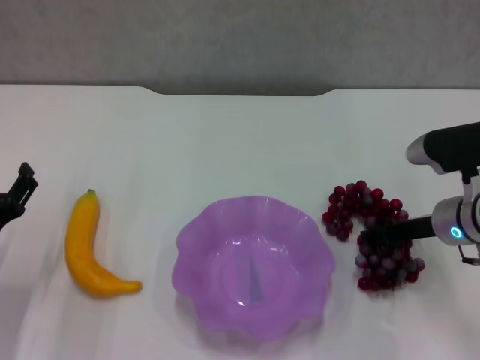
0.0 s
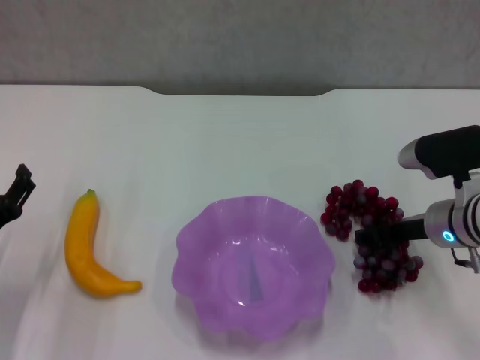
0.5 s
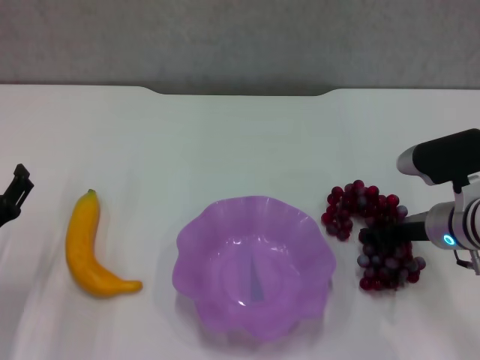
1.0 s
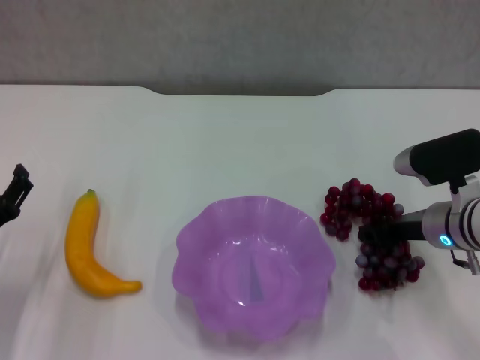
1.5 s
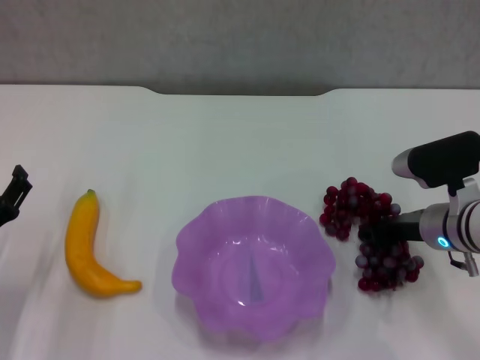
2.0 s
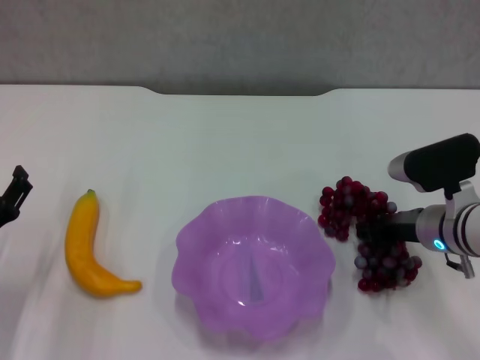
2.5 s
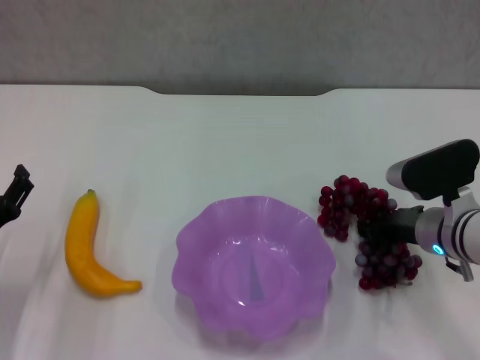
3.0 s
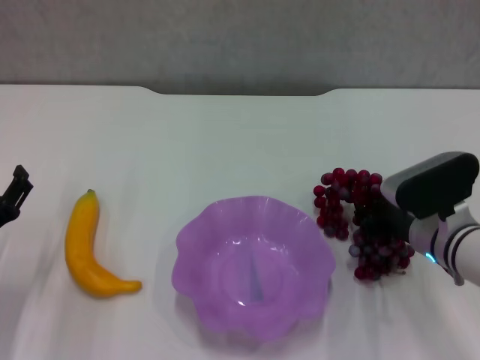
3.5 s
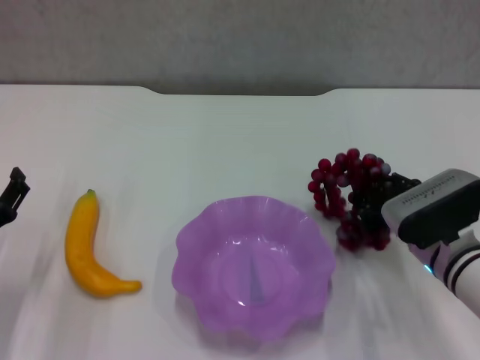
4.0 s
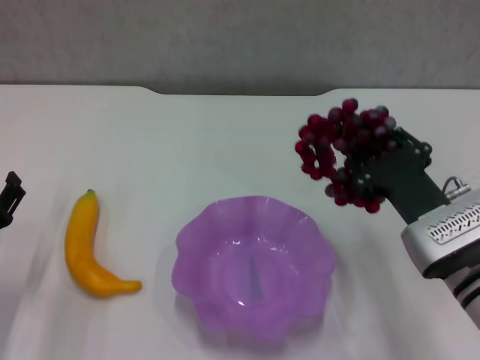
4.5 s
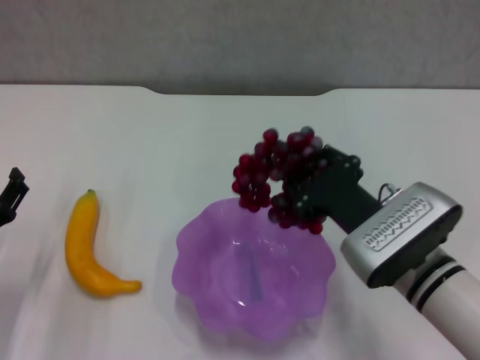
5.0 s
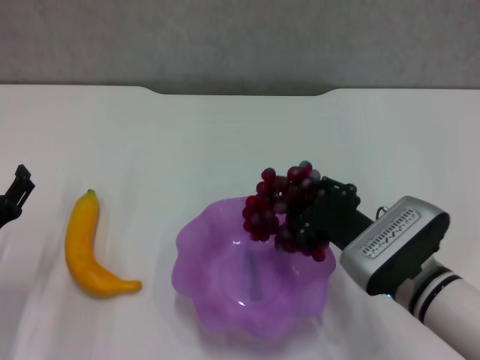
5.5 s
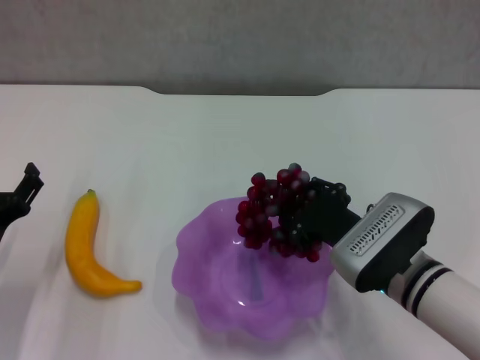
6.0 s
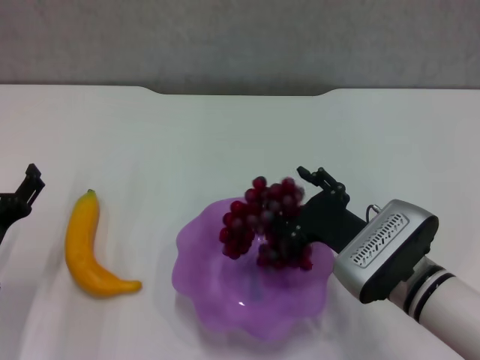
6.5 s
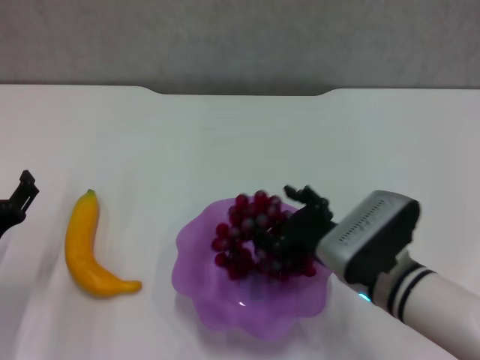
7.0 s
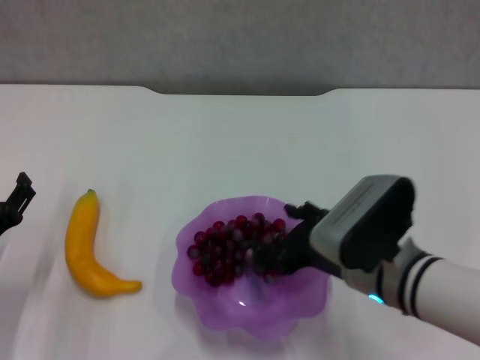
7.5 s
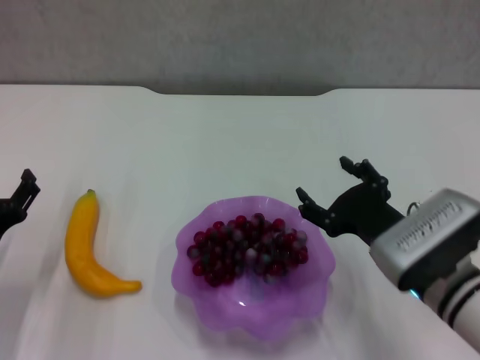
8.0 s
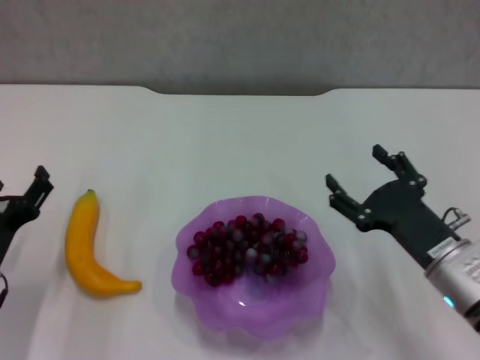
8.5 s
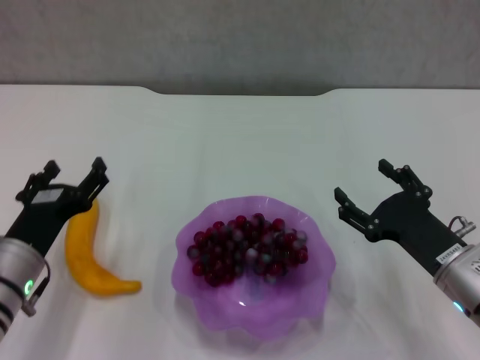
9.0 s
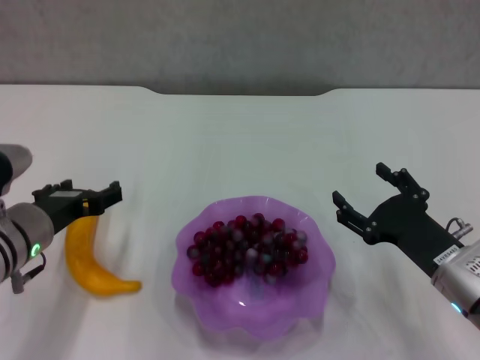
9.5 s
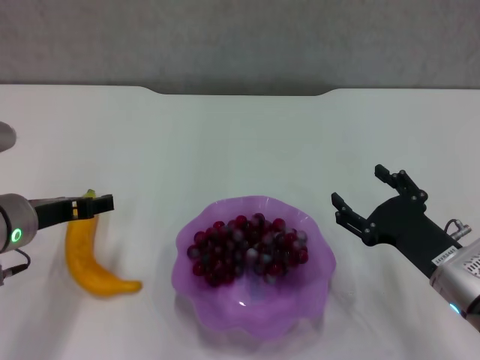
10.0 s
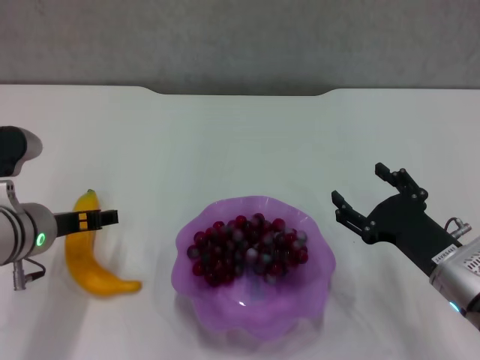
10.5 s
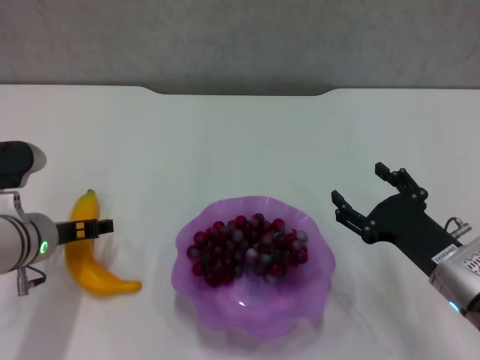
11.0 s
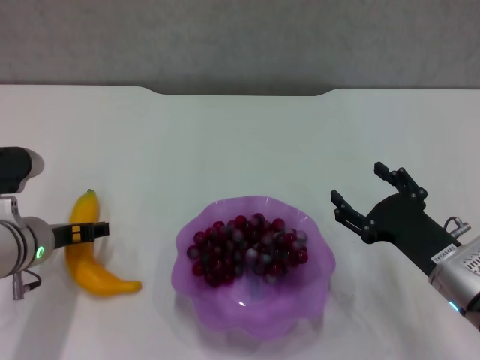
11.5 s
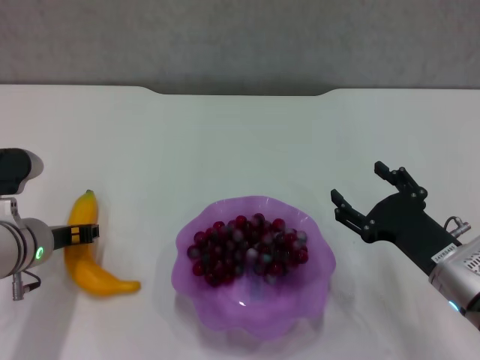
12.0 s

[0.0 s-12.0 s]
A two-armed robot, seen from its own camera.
Step, 1.0 to 7.5 s: Place the grape in the purple plate with right gripper.
0.0 to 2.0 s: The right gripper closes.
2.0 to 4.0 s: The right gripper changes place by approximately 5 cm.
4.0 to 6.0 s: The right gripper is displaced to the left by approximately 5 cm.
6.0 to 8.0 s: The right gripper opens its fingers.
8.0 to 10.0 s: The left gripper travels upward and forward by roughly 10 cm. The right gripper heads to the right, covering roughly 5 cm.
10.0 to 12.0 s: The left gripper is displaced downward by roughly 5 cm, and closes.

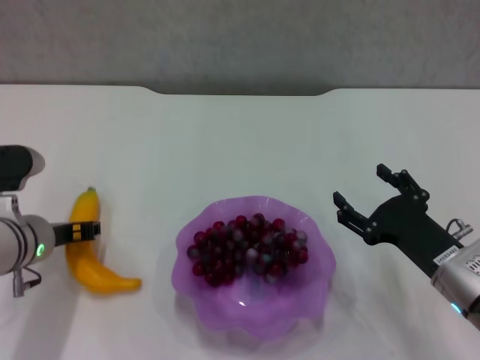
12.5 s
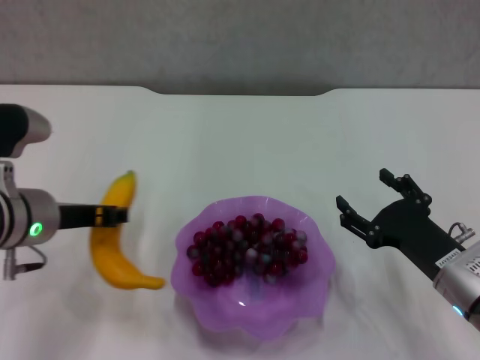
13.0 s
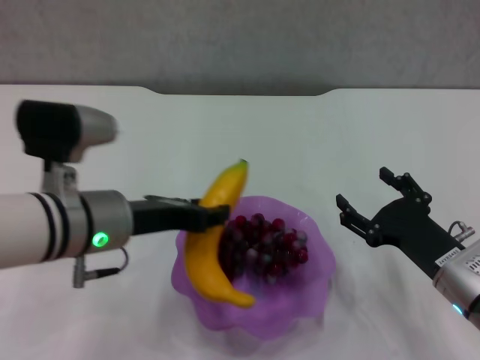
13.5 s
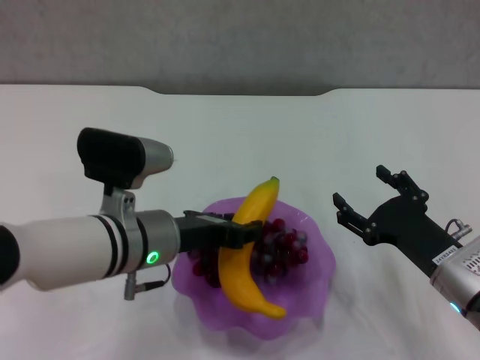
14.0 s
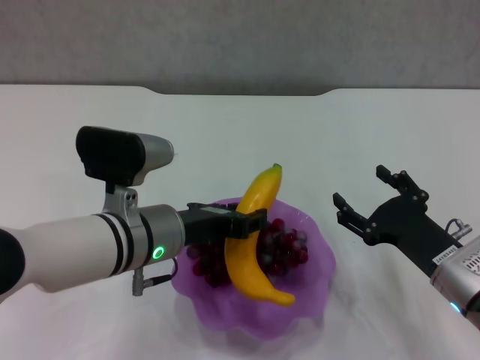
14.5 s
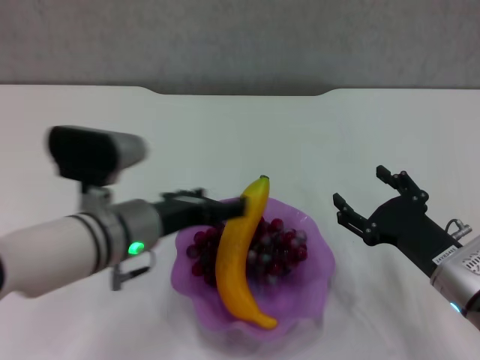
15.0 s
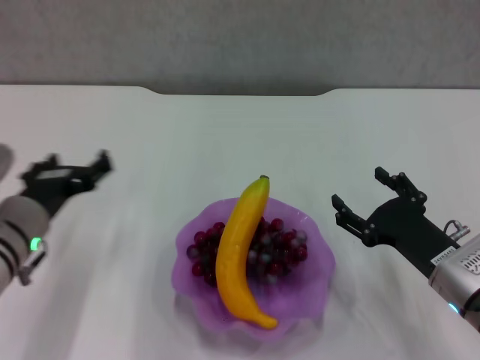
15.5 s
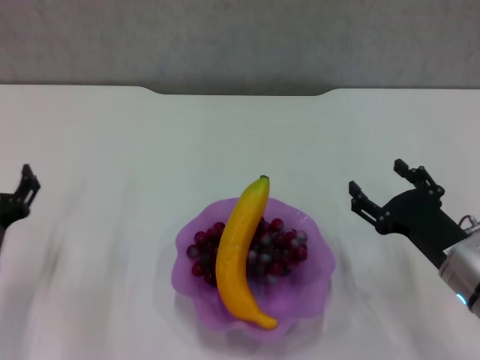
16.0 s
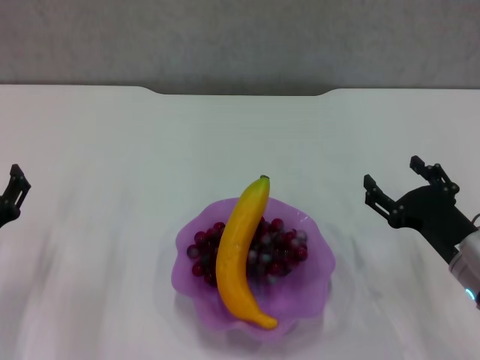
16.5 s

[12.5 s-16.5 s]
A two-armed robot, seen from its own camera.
Step, 12.5 to 15.0 s: Place the banana in the purple plate with left gripper.
12.5 to 14.5 s: The left gripper shifts roughly 10 cm to the right.
14.5 to 16.5 s: The left gripper shifts about 20 cm to the left and downward, and opens its fingers.

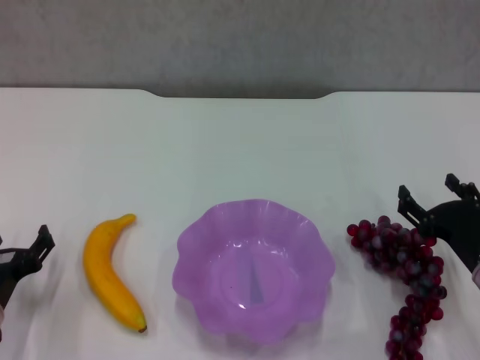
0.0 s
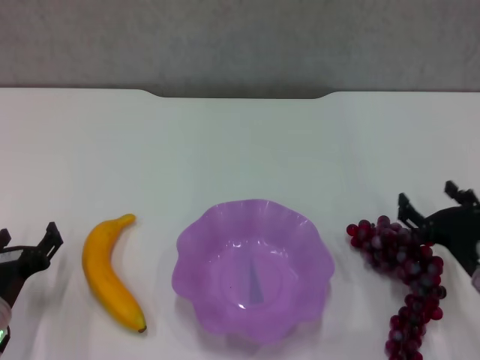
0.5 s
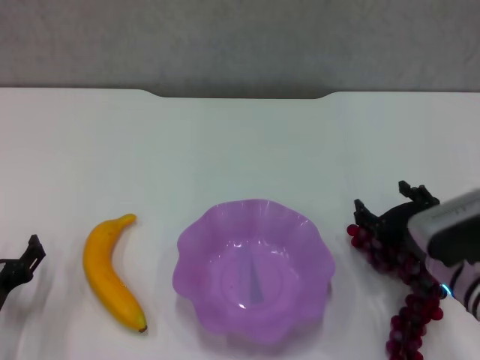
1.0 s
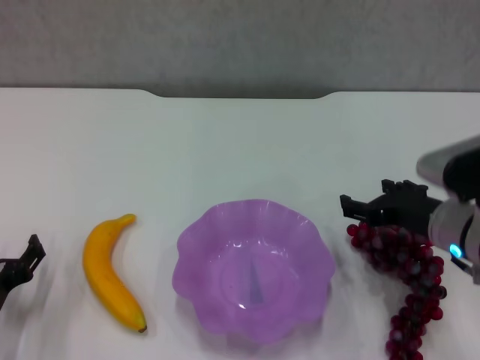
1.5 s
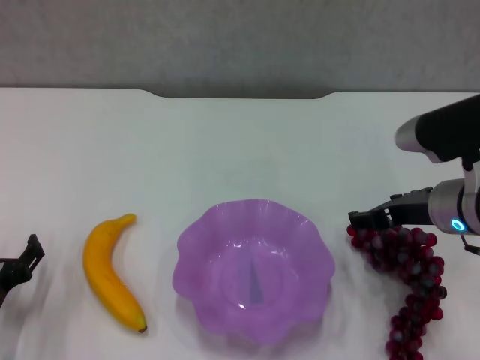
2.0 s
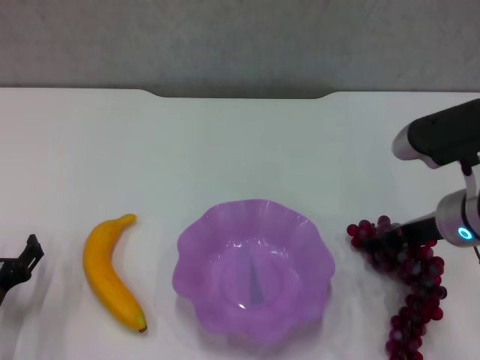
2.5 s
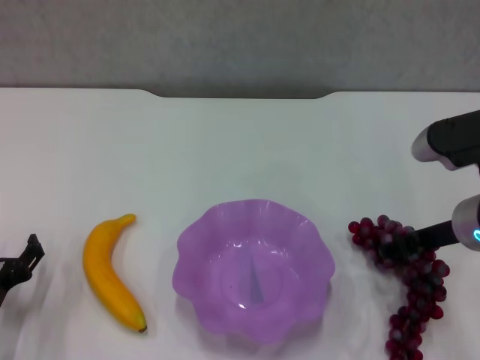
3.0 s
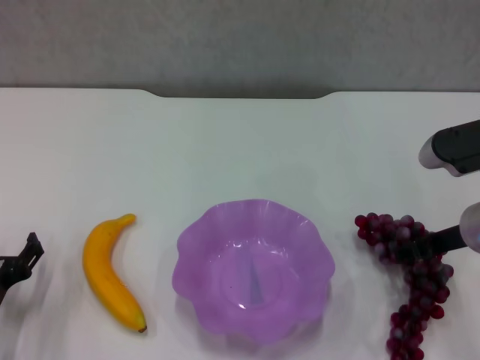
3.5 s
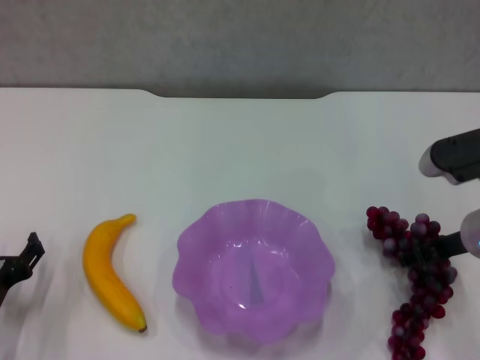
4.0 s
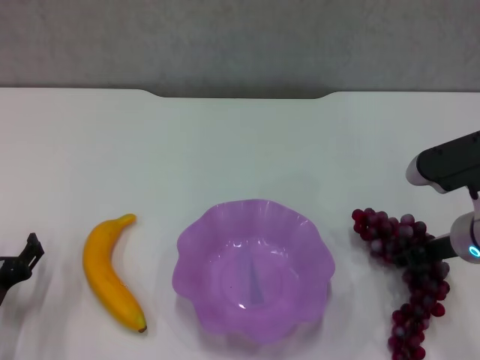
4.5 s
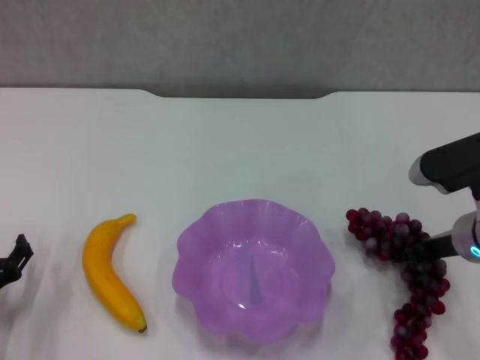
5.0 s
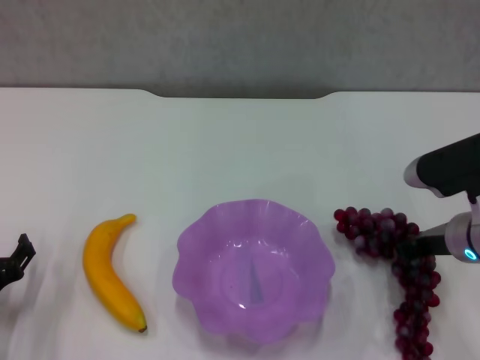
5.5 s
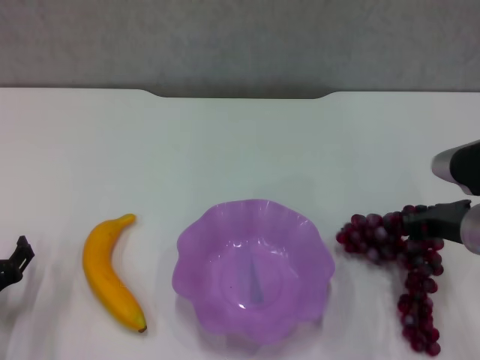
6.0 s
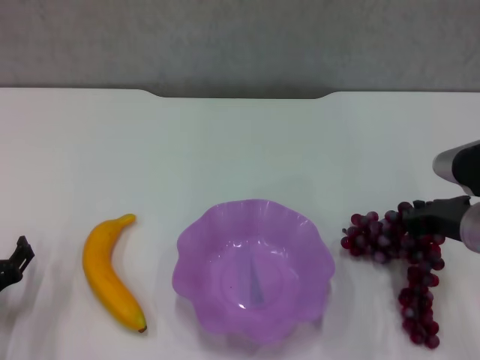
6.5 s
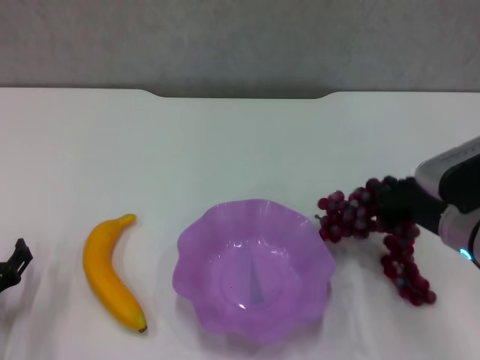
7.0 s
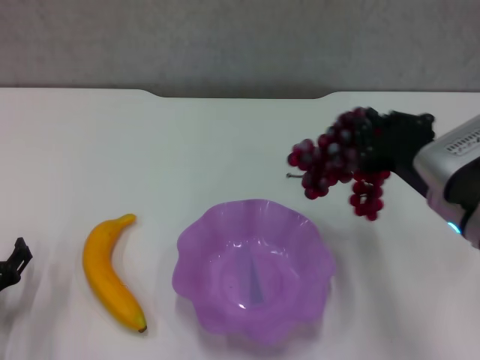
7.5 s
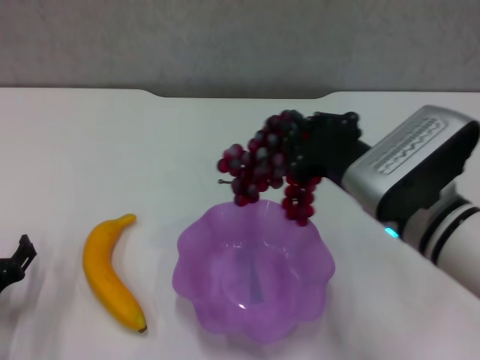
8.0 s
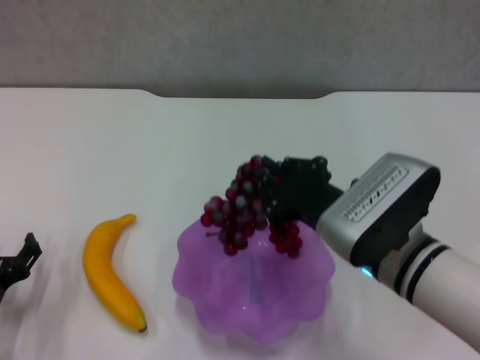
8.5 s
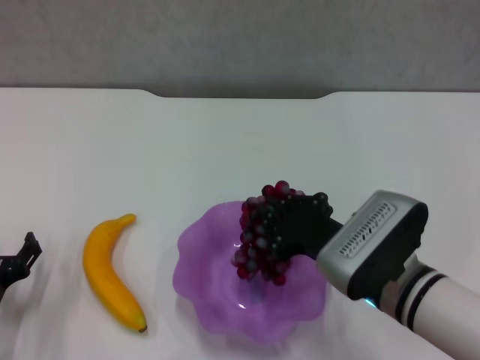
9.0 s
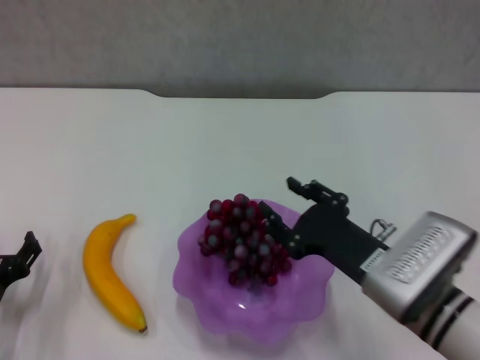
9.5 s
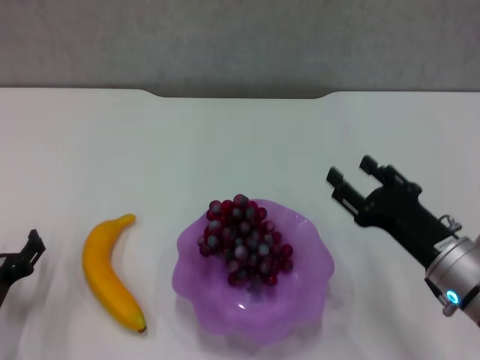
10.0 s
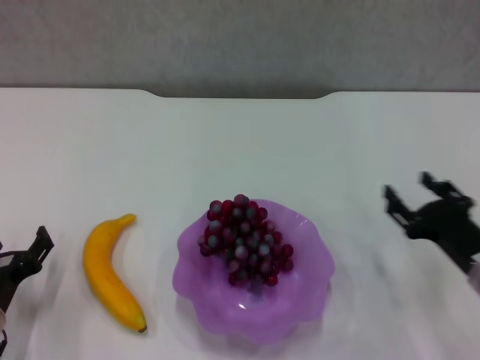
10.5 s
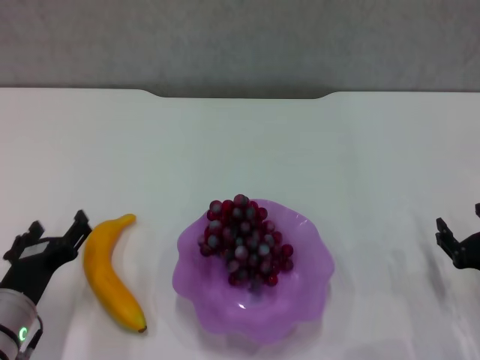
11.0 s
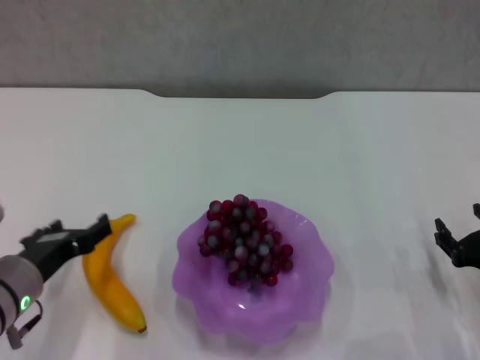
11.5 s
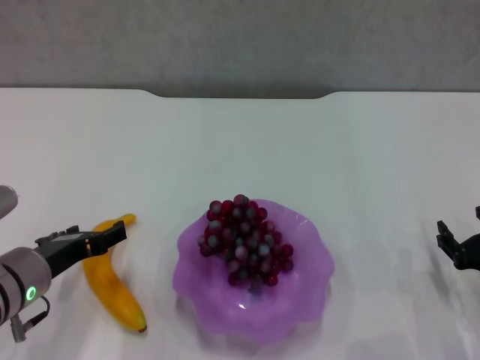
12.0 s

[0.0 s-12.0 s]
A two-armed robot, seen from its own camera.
Step, 0.0 to 4.0 s: Grasp the grape with right gripper.
Step, 4.5 to 9.5 s: Place the grape in the purple plate with right gripper.
0.0 to 2.0 s: The right gripper goes about 15 cm upward, forward and to the left.
2.0 to 4.0 s: The grippers make only small movements.
4.0 to 6.0 s: The right gripper closes its fingers.
6.0 to 8.0 s: The right gripper is displaced to the left by about 10 cm.
8.0 to 10.0 s: The right gripper heads downward and to the right, covering some 10 cm, and opens.
10.0 to 12.0 s: The right gripper shifts some 10 cm to the right, while the left gripper is displaced upward and to the right by some 10 cm.
